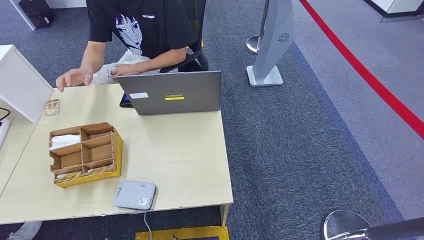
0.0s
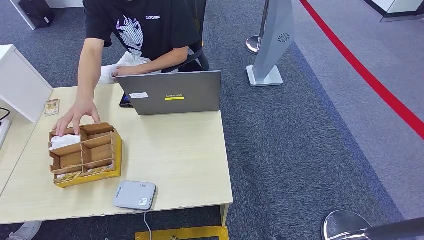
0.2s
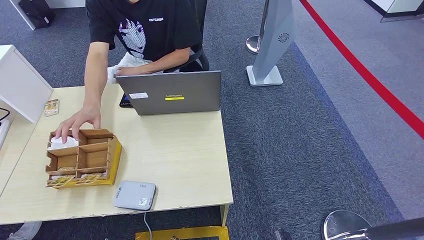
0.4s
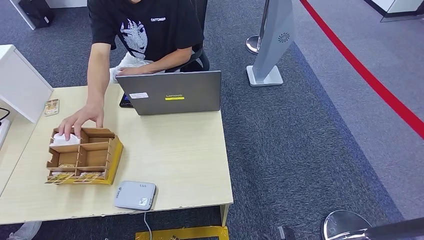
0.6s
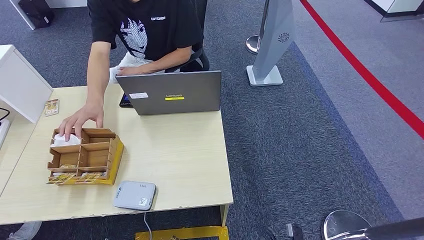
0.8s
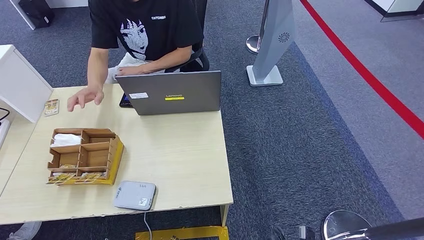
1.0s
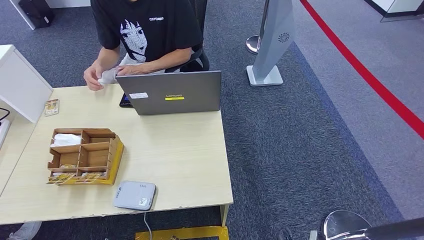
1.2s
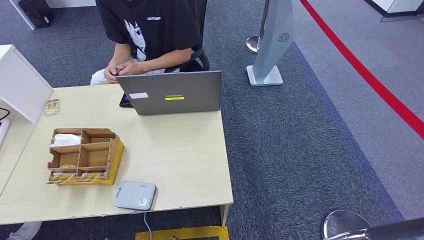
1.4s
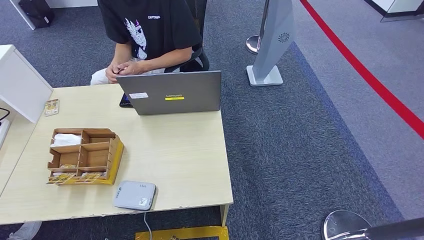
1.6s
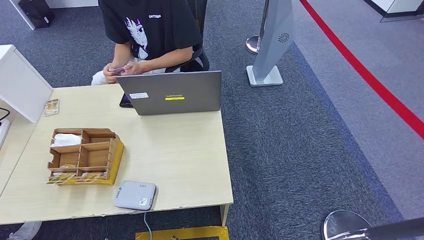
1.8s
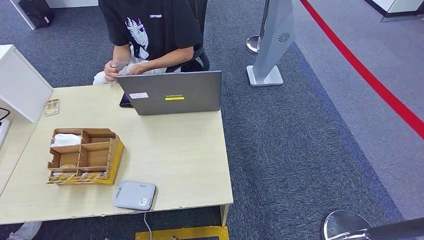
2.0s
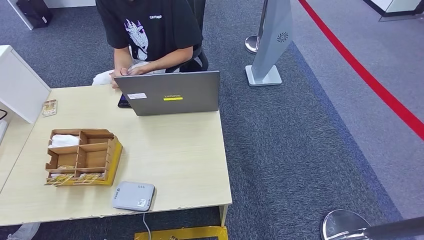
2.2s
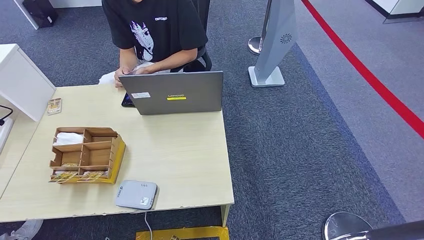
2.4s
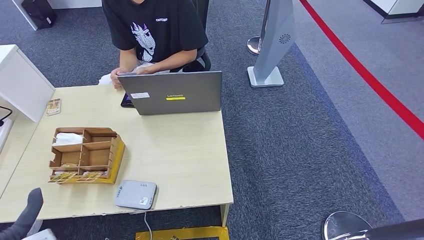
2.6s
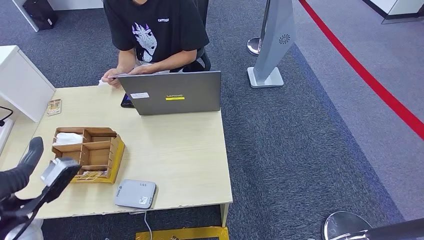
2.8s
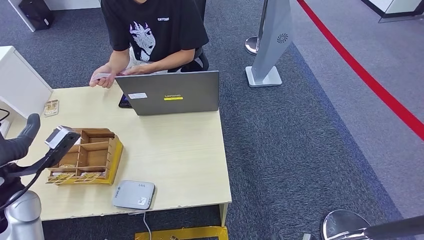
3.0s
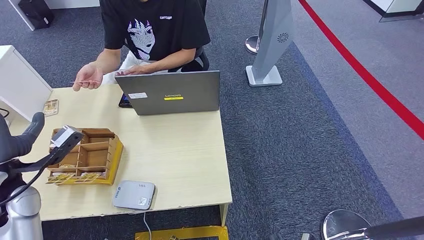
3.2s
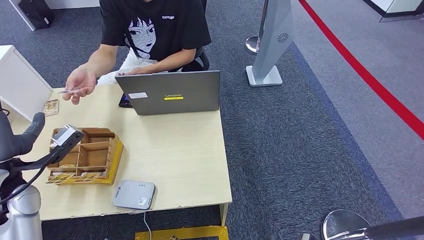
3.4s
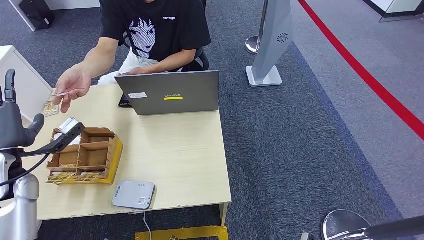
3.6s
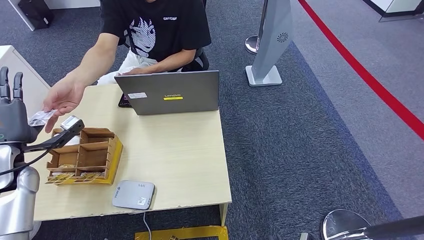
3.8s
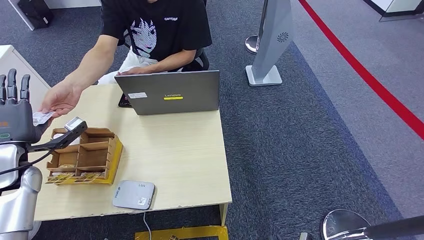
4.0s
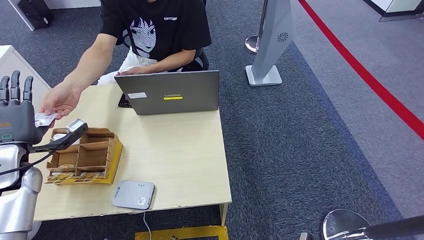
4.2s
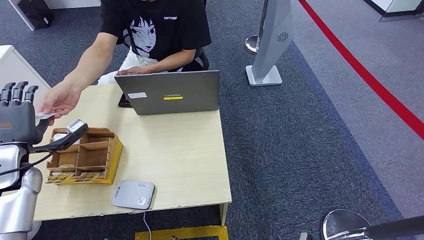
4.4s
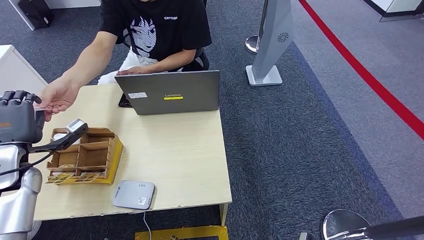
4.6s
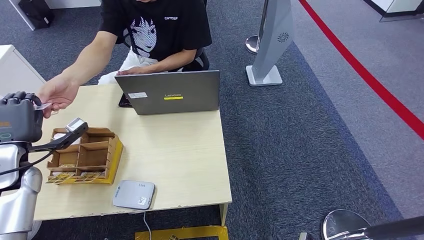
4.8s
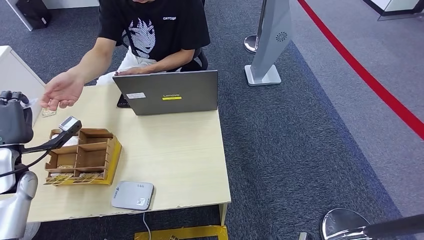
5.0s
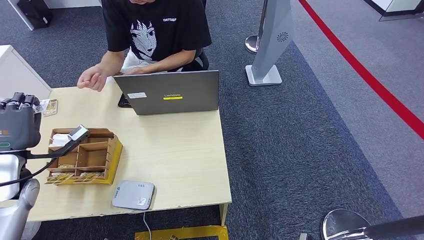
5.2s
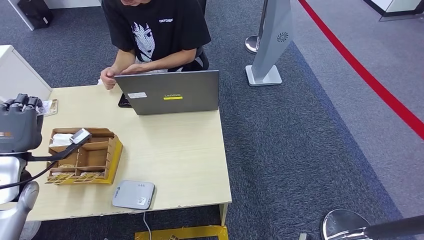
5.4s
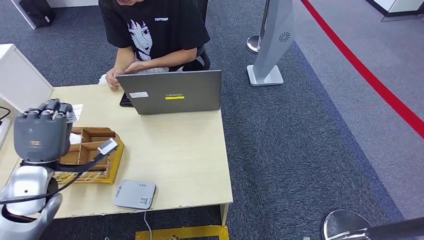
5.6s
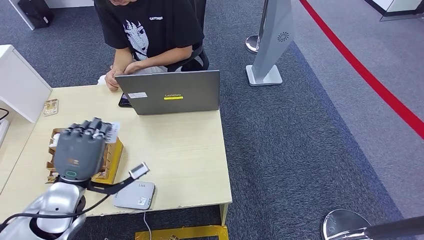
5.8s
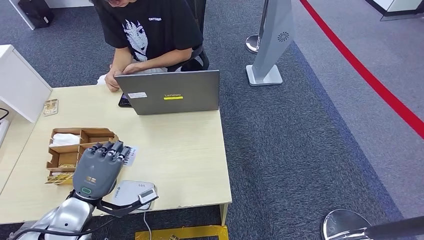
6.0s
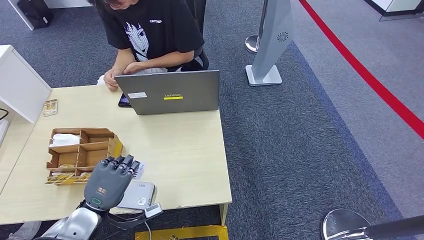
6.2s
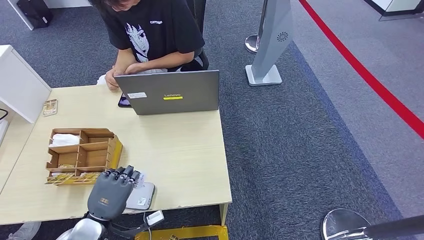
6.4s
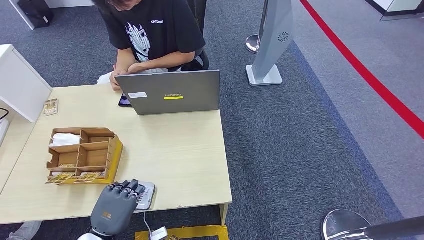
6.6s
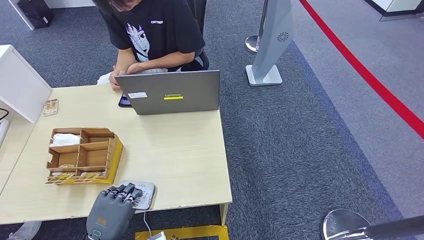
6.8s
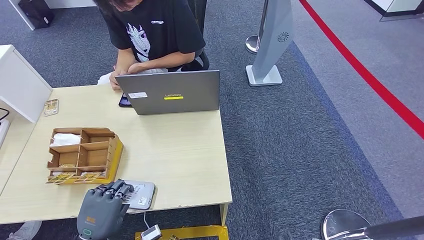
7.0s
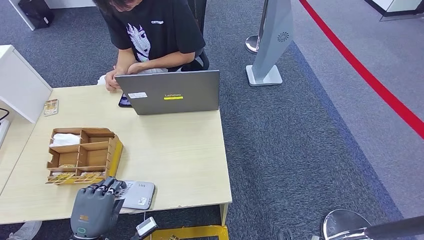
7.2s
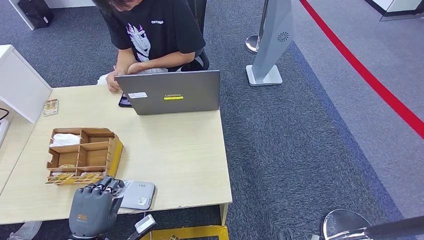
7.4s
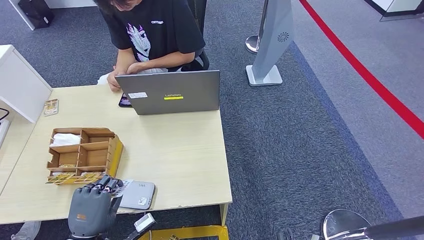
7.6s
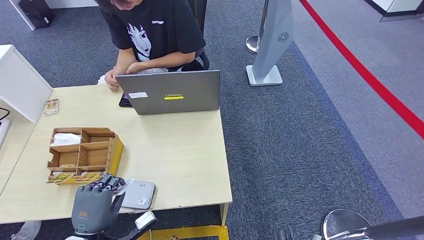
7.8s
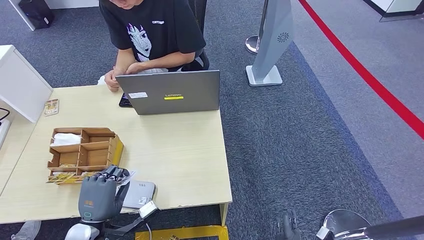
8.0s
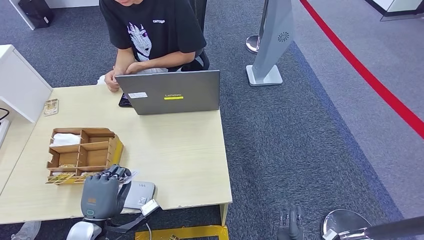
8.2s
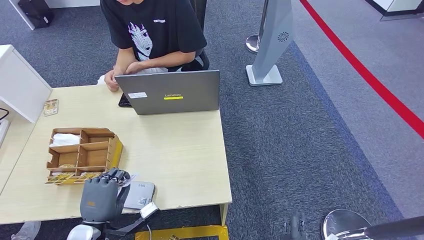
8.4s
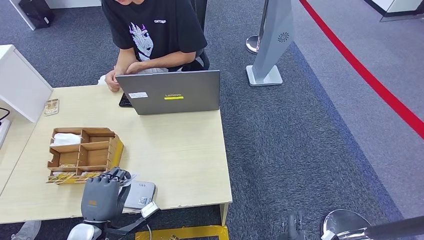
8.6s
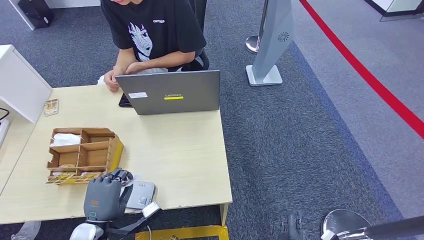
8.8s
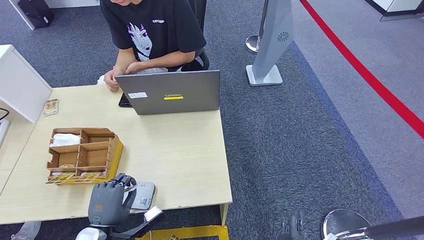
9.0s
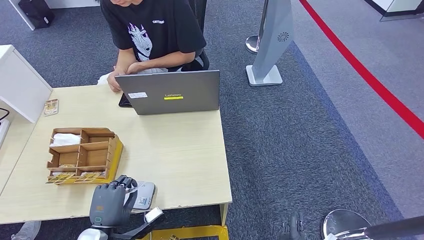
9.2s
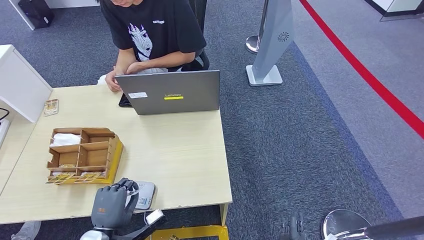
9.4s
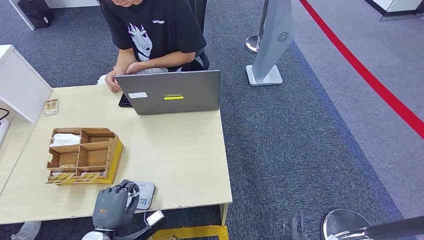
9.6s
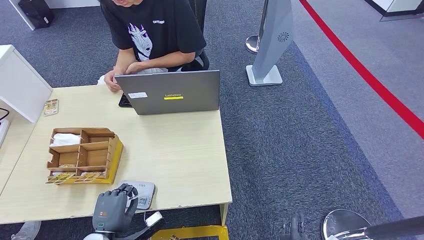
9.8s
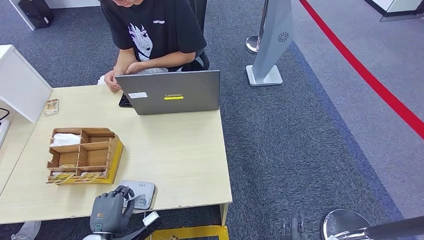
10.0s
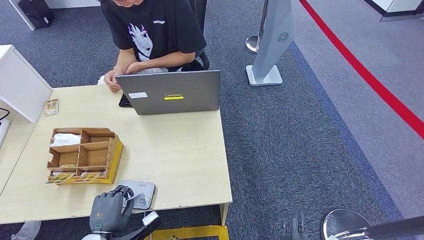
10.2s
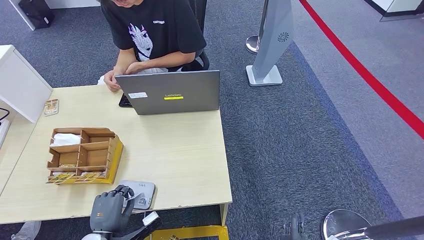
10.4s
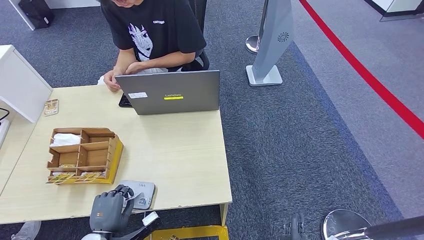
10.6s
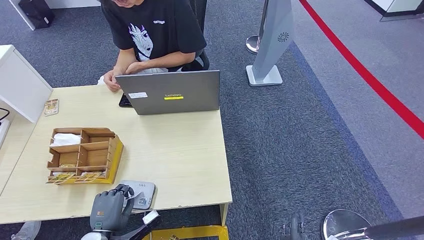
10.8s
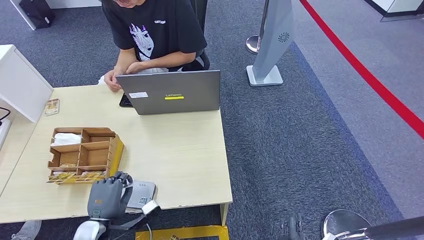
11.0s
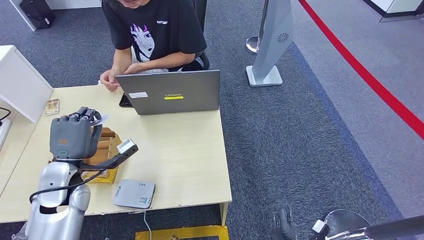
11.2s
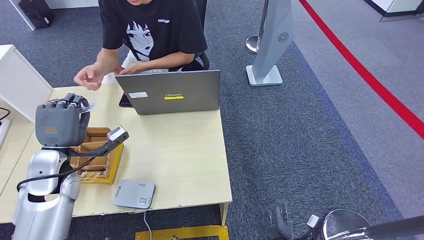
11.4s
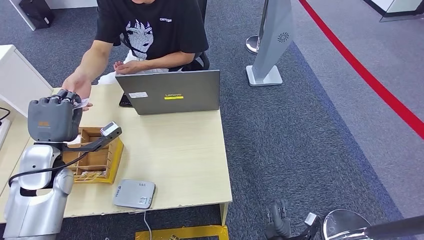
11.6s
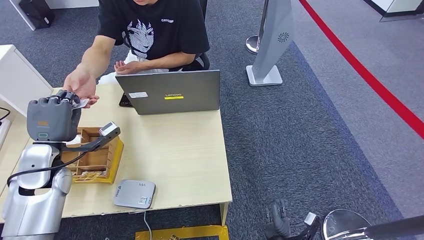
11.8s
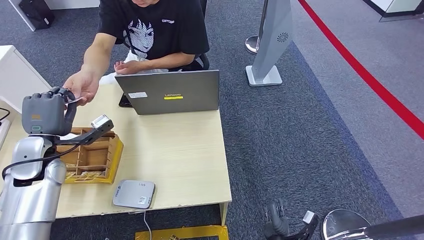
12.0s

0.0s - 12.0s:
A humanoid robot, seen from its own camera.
Step, 0.0s - 5.2s: Take the ID card from the person's hand.
Step, 5.4s - 7.8s: Place the ID card on the card reader.
1.6s - 3.0s: The right hand changes place by some 5 cm; the left hand is displaced upward and forward by approximately 40 cm.
3.0s - 4.4s: The left hand moves forward and to the left, about 10 cm.
4.4s - 6.0s: The left hand is displaced to the right, backward and downward by approximately 20 cm.
6.0s - 7.6s: The left hand shifts about 10 cm backward and downward.
9.0s - 10.4s: The left hand ends up some 5 cm from where it was.
10.4s - 12.0s: The left hand moves upward, forward and to the left, approximately 30 cm.

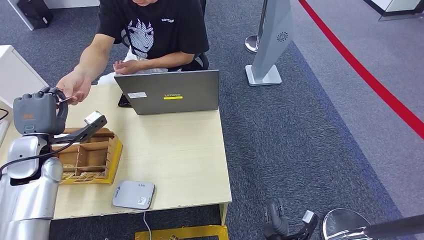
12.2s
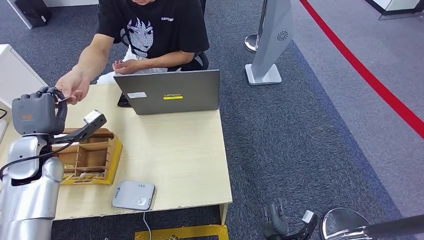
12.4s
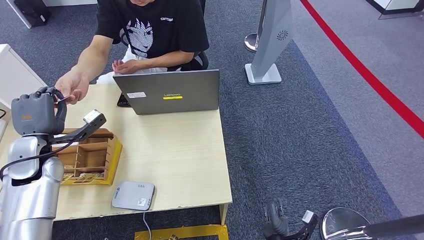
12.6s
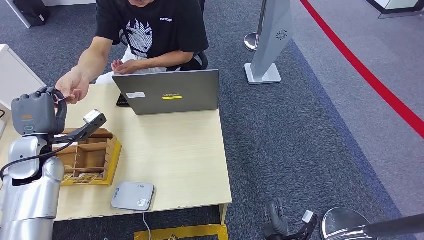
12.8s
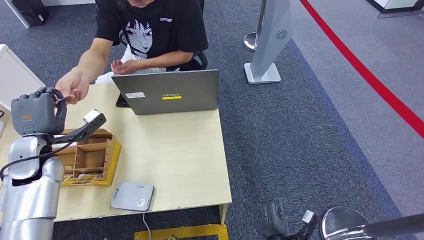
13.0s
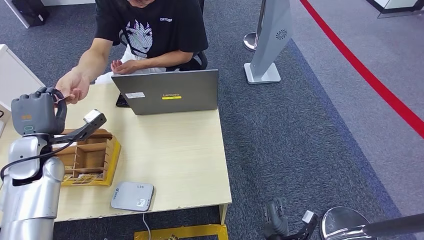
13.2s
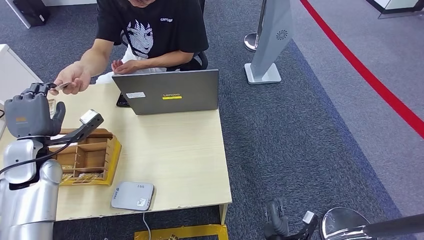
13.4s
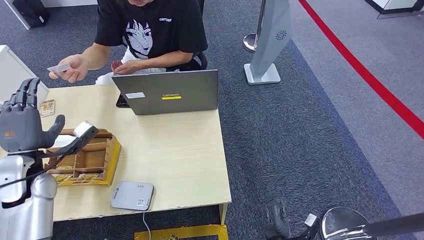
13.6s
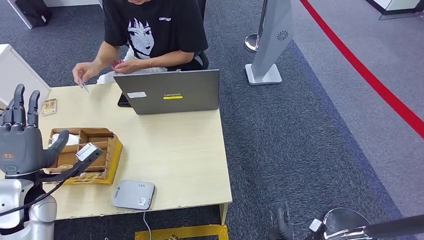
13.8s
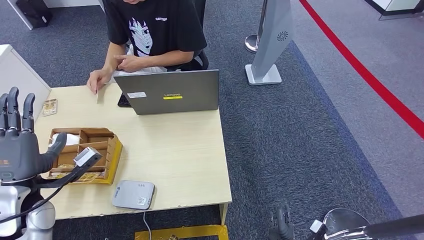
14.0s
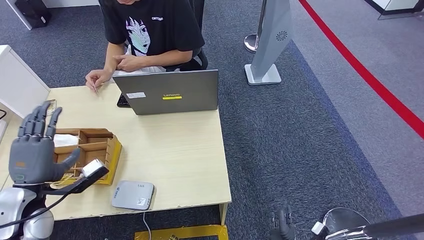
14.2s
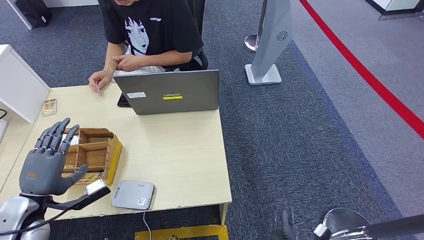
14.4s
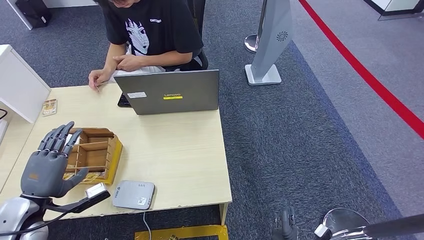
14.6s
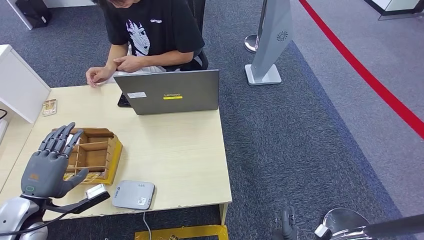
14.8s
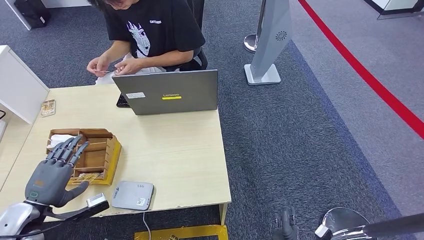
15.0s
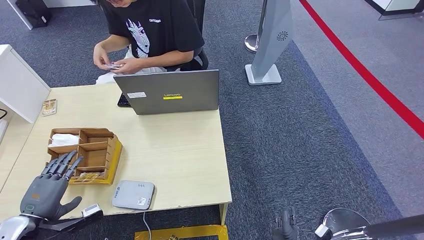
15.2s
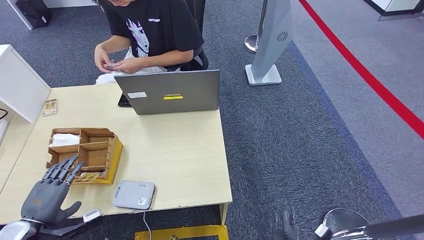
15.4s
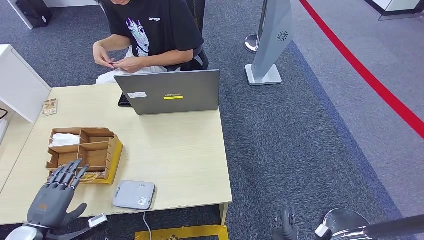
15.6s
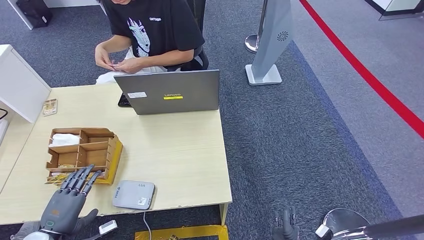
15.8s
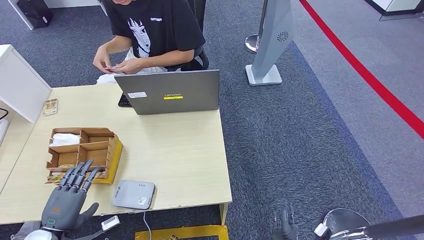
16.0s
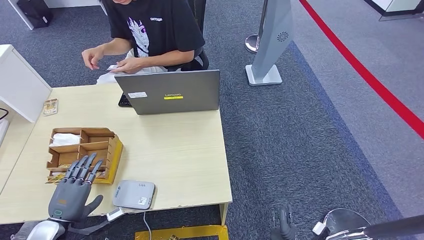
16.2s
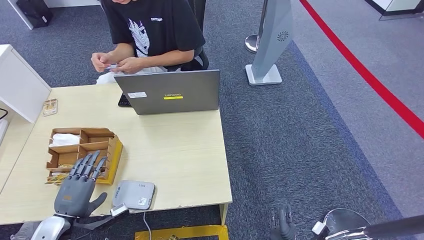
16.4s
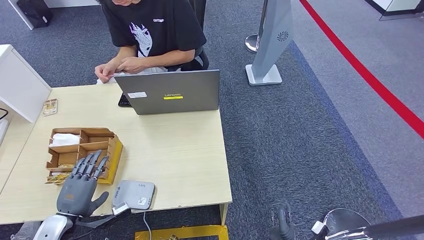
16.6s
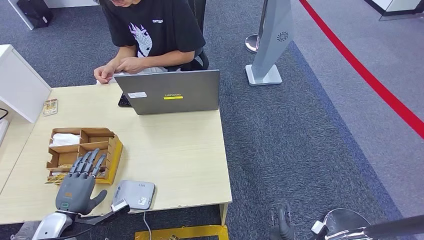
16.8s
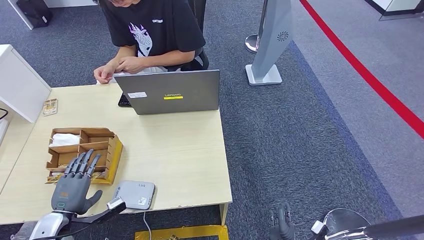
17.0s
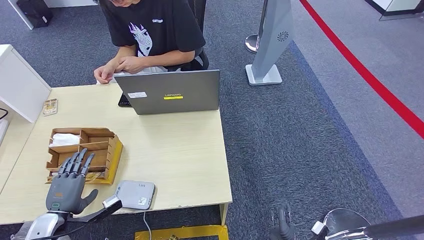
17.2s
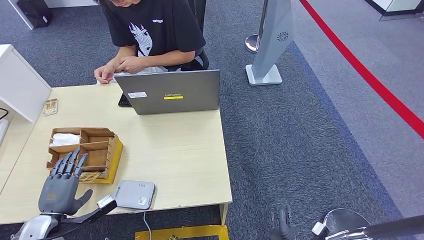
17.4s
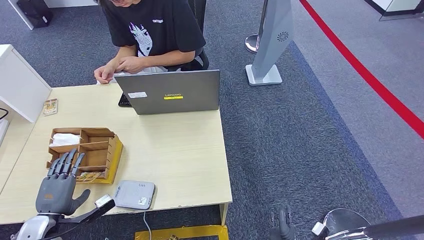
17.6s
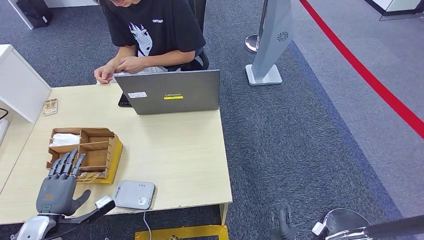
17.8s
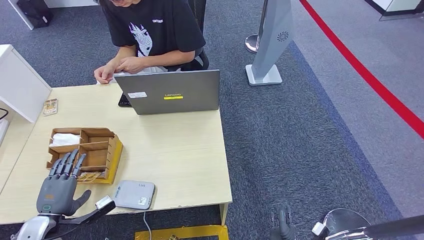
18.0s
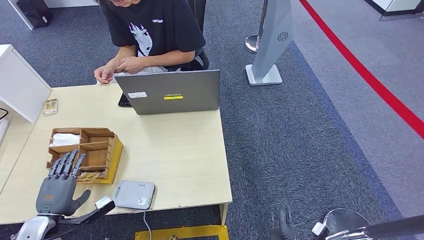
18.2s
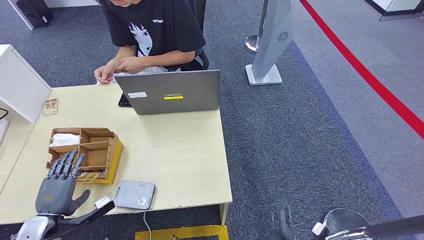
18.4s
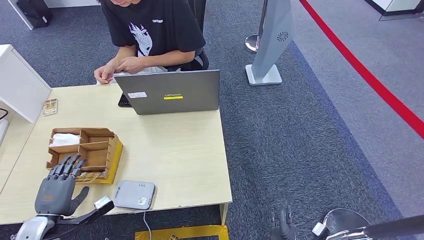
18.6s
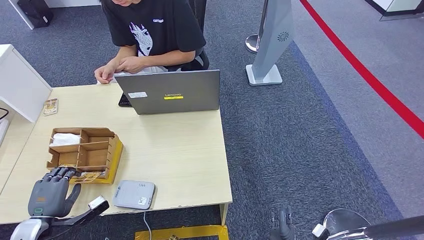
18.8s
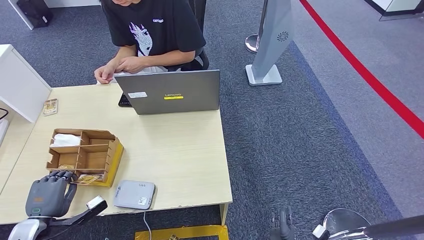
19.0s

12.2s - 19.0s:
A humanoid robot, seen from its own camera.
12.2s - 13.6s: There are only small adjustments of the hands.
13.6s - 15.0s: The left hand heads backward and downward, covering approximately 10 cm.
15.0s - 16.2s: The left hand moves downward, roughly 5 cm.
16.2s - 19.0s: The hands make only small movements.
